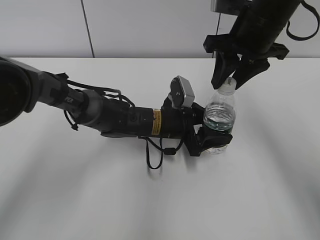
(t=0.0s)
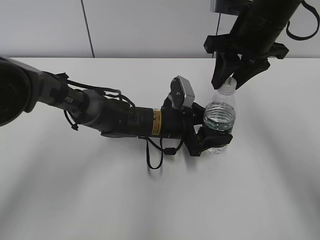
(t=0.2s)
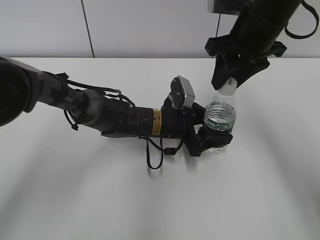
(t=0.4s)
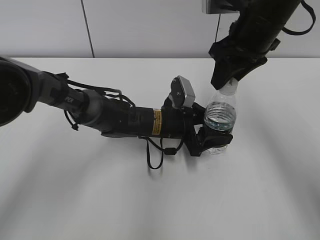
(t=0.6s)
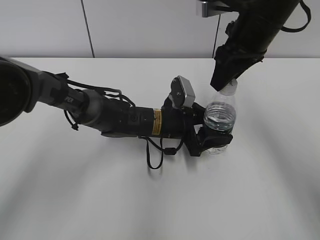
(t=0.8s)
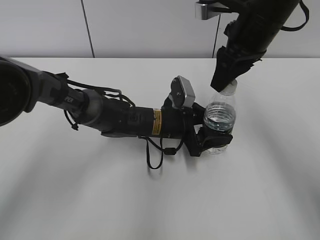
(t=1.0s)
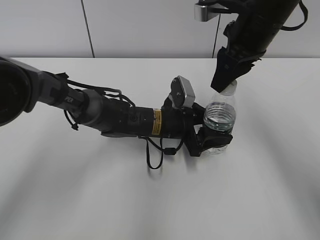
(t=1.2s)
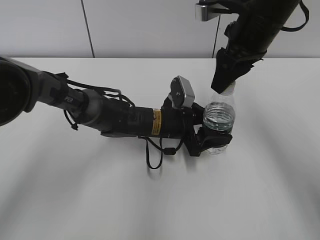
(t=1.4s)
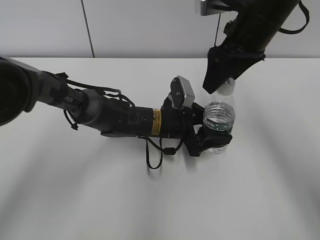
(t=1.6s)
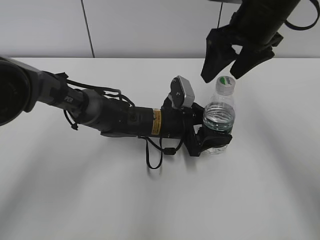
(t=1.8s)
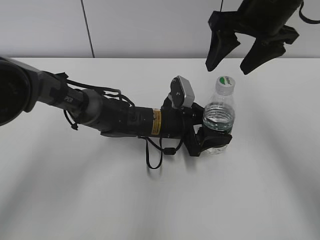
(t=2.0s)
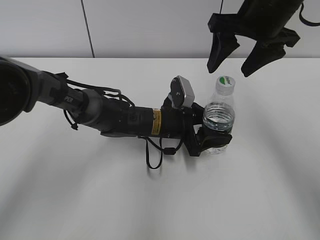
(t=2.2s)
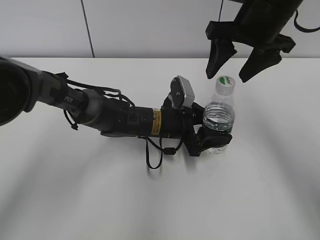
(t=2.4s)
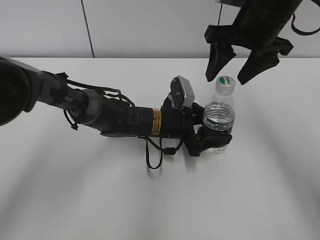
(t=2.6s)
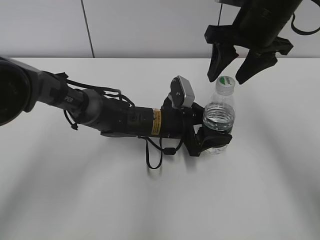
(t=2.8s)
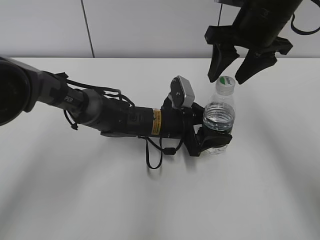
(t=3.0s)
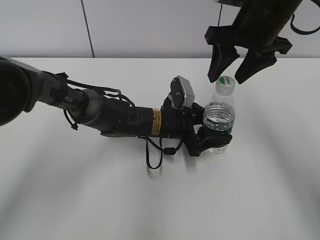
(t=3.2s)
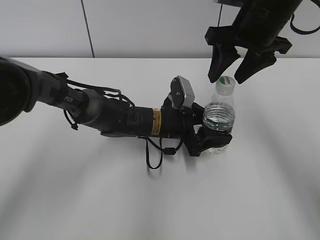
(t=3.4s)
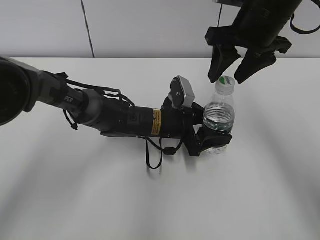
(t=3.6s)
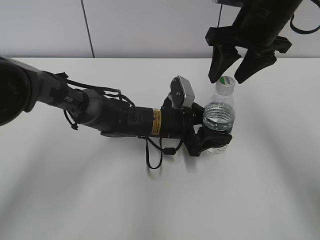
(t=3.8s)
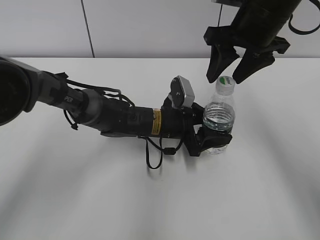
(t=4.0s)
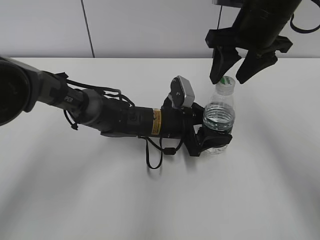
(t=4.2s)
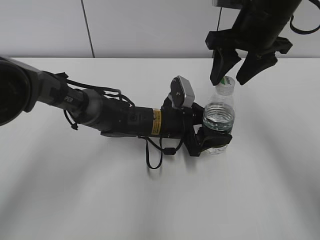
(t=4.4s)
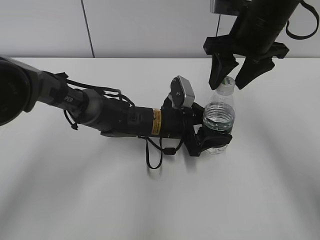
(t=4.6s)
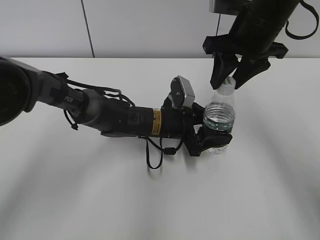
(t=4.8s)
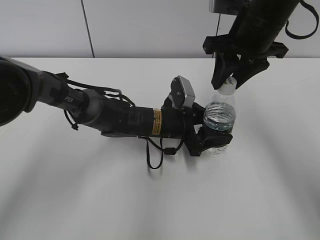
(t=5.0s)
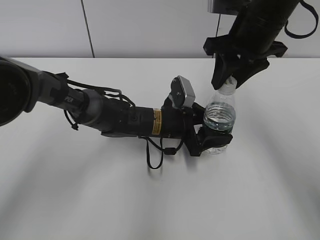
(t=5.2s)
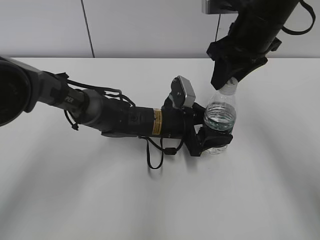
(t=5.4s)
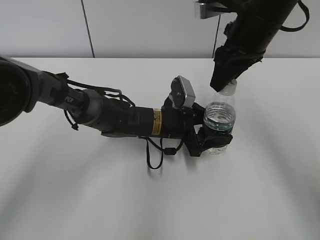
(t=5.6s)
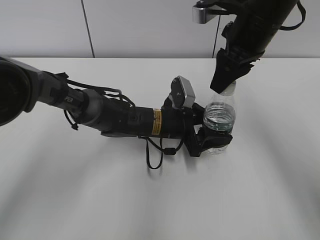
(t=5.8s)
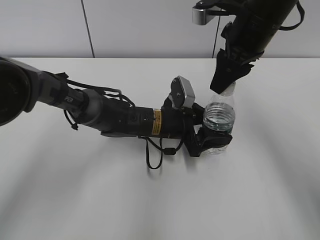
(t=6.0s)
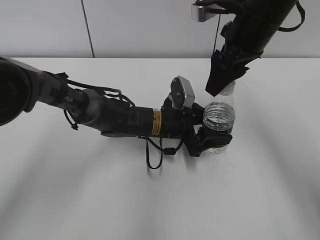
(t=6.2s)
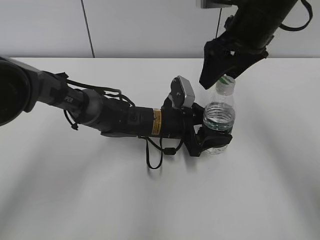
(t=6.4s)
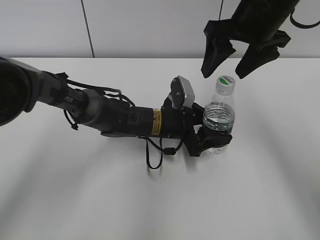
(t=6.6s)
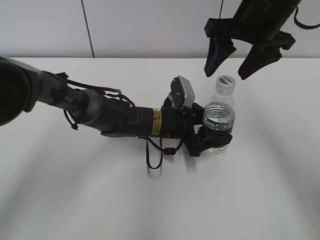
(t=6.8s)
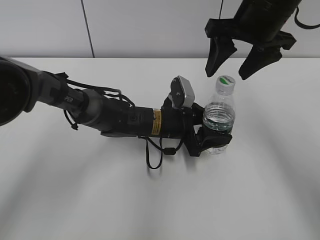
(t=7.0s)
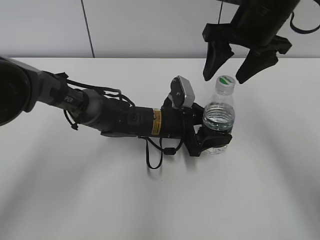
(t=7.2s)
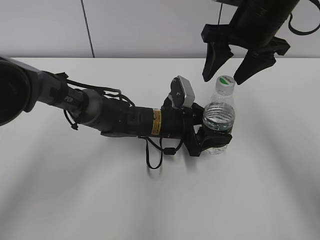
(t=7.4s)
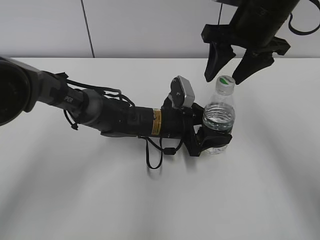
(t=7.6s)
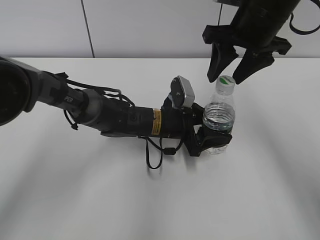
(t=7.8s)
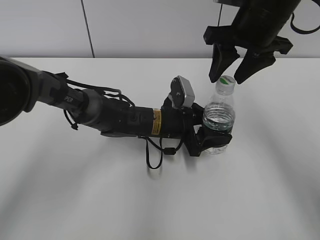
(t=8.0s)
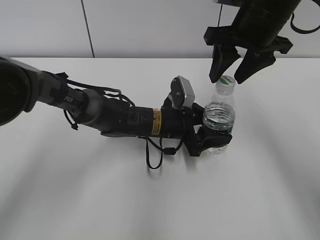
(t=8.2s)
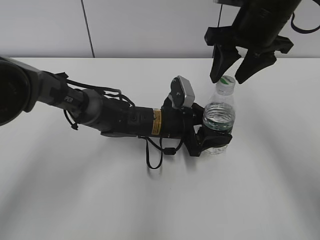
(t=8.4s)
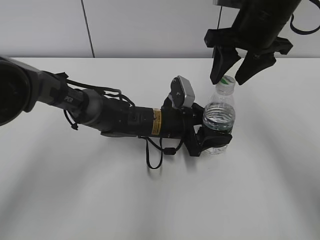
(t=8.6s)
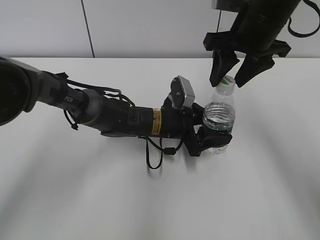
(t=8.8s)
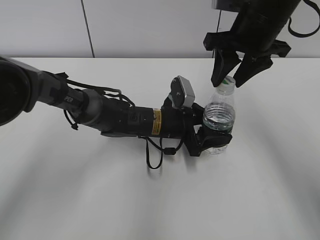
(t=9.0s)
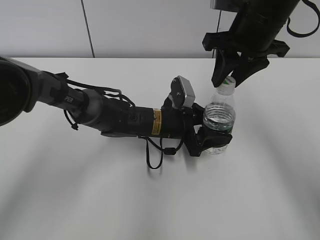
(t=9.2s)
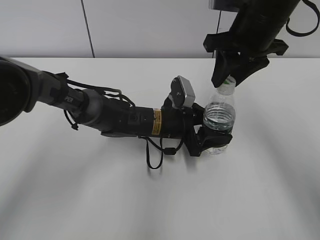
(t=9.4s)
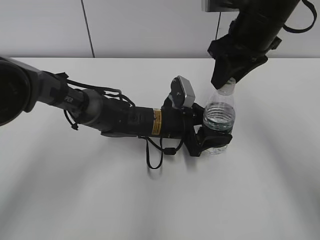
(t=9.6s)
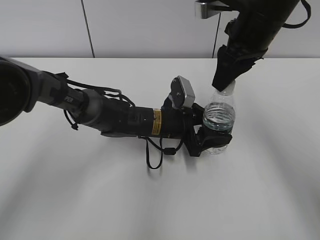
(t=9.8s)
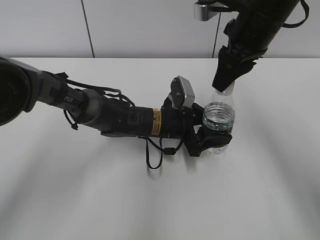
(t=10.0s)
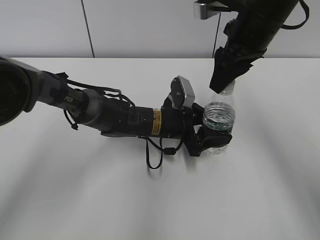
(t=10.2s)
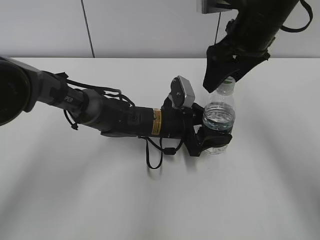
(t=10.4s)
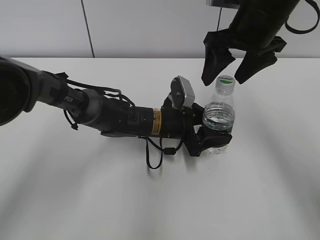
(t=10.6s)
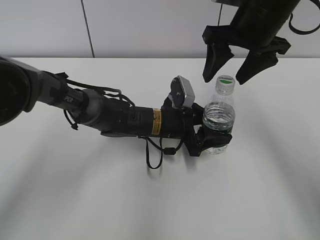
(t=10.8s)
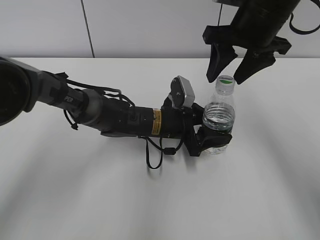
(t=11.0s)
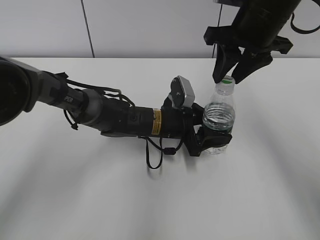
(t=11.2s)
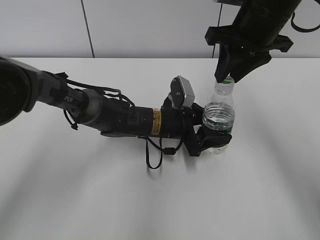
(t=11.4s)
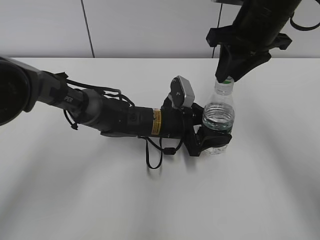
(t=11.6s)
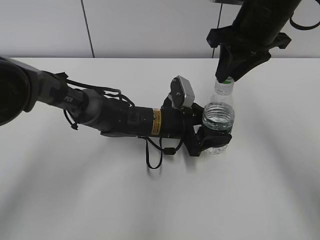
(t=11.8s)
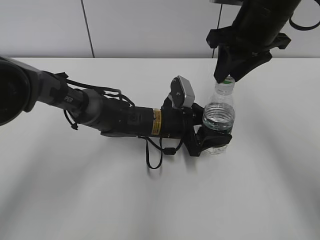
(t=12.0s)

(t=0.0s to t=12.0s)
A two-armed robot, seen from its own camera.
t=0.0s - t=1.6s: The right gripper opens.
t=3.0s - t=4.4s: Both grippers stay about where they are.
t=4.4s - t=6.0s: The right gripper closes its fingers.
t=6.0s - t=7.6s: The right gripper opens.
t=7.6s - t=9.0s: Neither gripper changes place.
t=9.0s - t=10.4s: The right gripper opens up.
t=10.4s - t=12.0s: The right gripper closes its fingers.

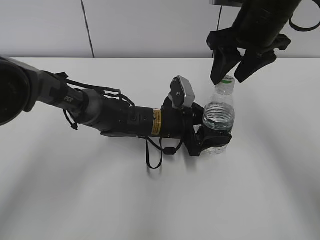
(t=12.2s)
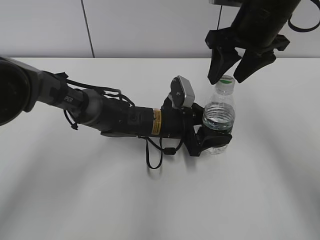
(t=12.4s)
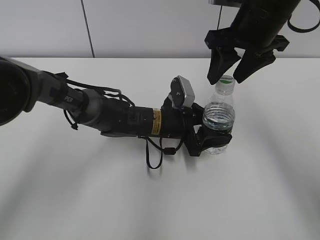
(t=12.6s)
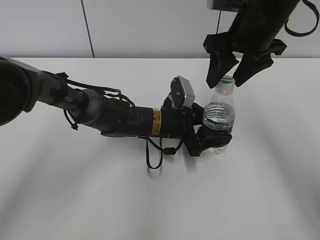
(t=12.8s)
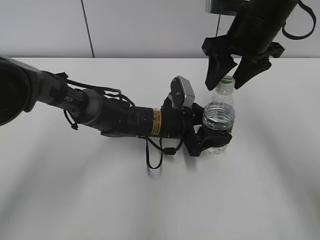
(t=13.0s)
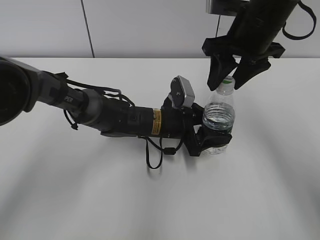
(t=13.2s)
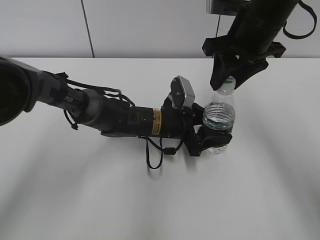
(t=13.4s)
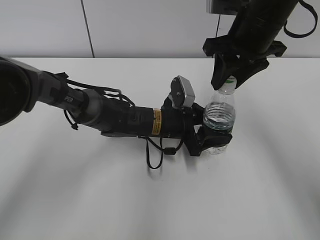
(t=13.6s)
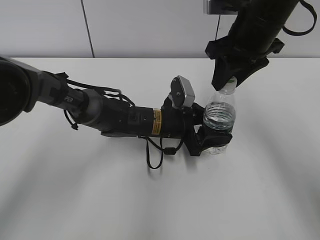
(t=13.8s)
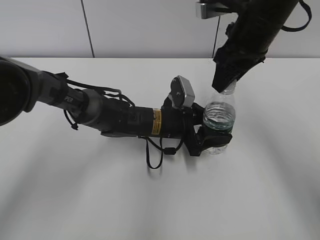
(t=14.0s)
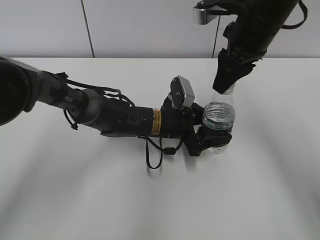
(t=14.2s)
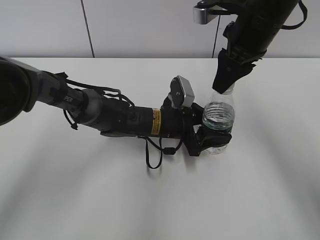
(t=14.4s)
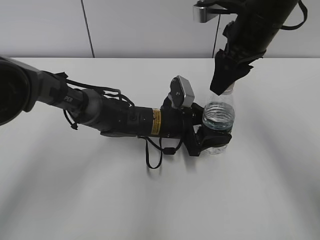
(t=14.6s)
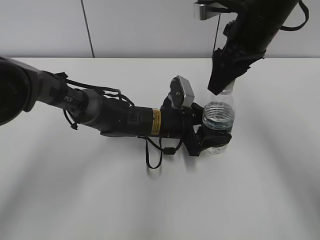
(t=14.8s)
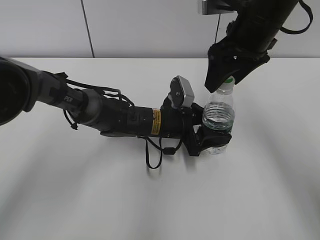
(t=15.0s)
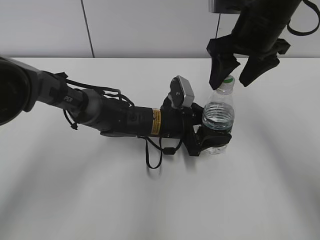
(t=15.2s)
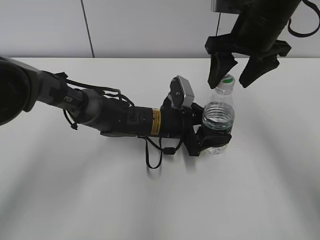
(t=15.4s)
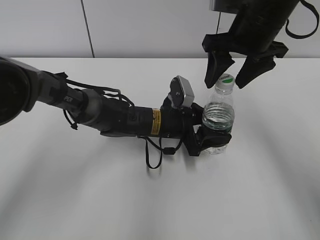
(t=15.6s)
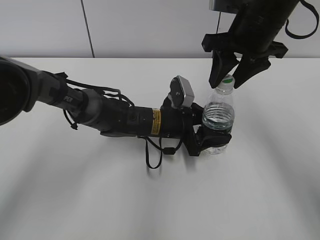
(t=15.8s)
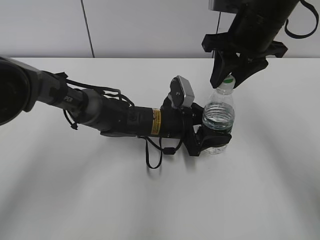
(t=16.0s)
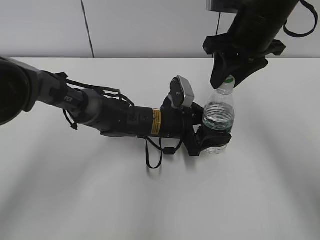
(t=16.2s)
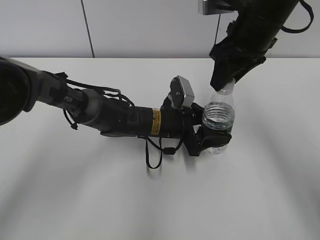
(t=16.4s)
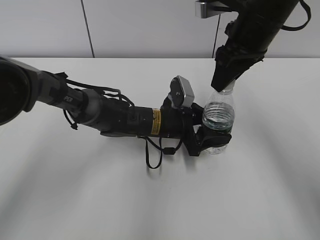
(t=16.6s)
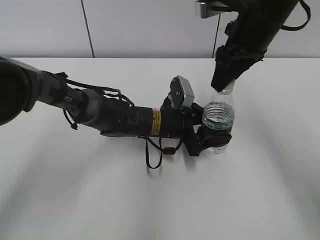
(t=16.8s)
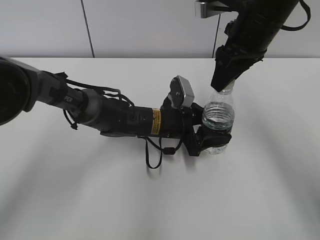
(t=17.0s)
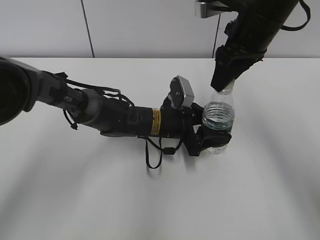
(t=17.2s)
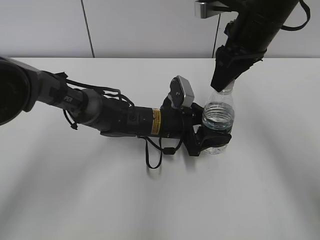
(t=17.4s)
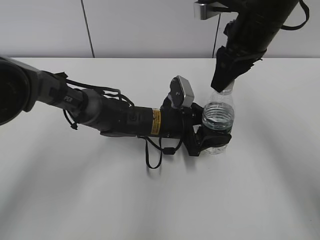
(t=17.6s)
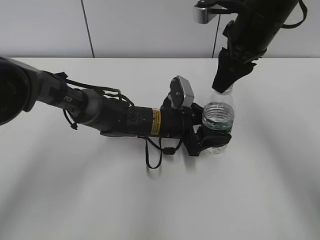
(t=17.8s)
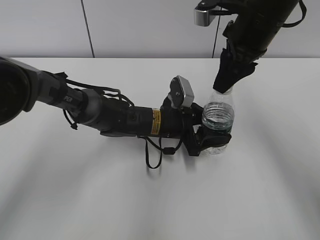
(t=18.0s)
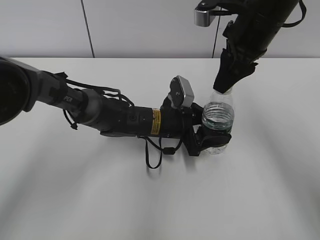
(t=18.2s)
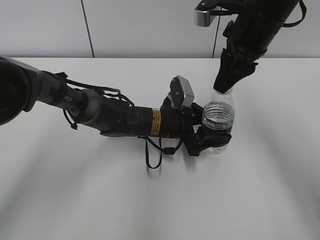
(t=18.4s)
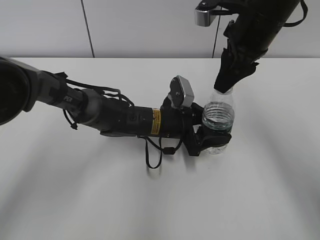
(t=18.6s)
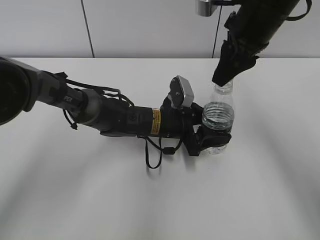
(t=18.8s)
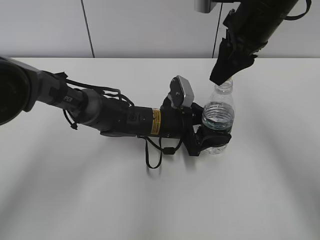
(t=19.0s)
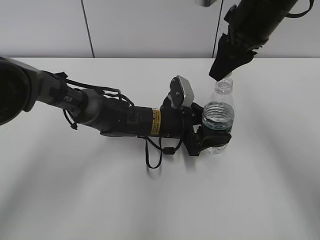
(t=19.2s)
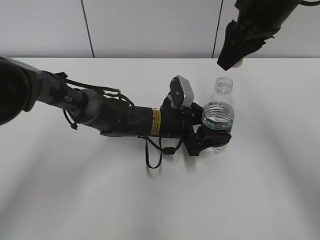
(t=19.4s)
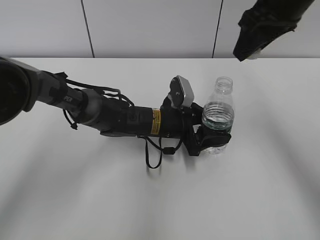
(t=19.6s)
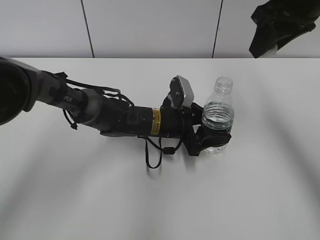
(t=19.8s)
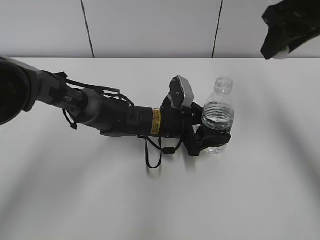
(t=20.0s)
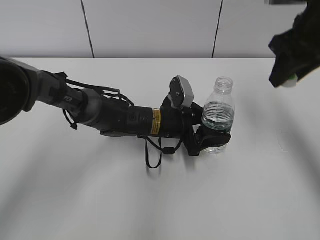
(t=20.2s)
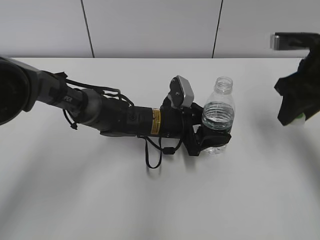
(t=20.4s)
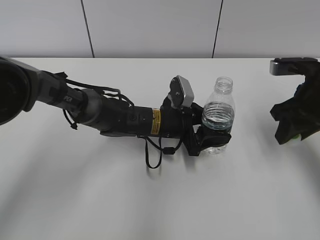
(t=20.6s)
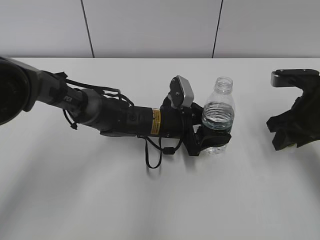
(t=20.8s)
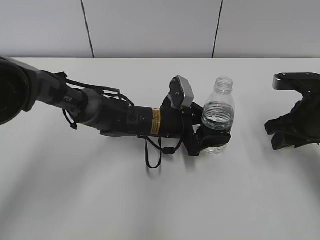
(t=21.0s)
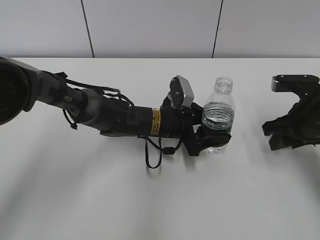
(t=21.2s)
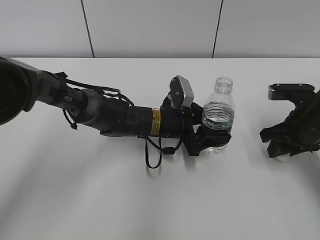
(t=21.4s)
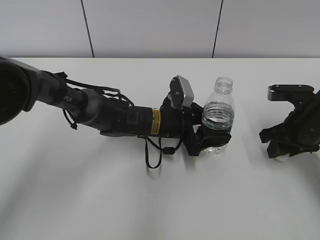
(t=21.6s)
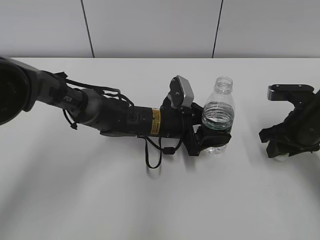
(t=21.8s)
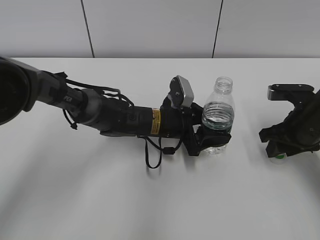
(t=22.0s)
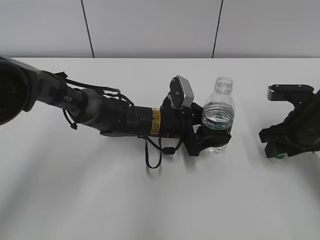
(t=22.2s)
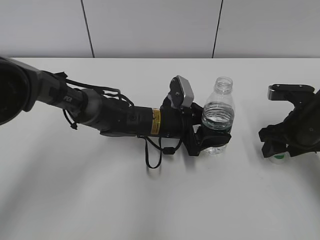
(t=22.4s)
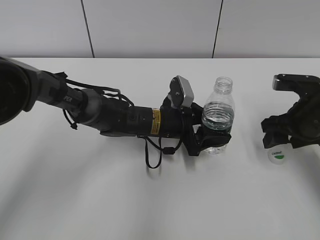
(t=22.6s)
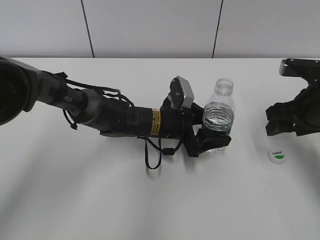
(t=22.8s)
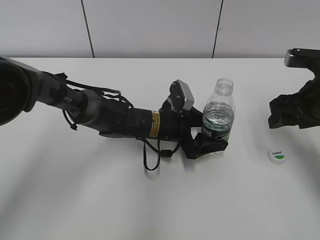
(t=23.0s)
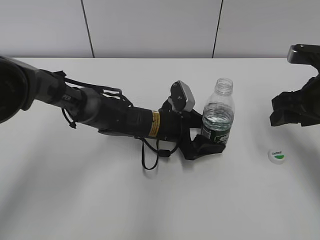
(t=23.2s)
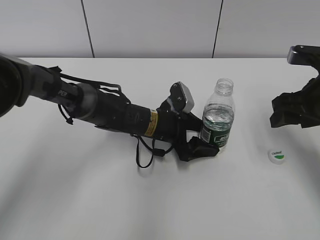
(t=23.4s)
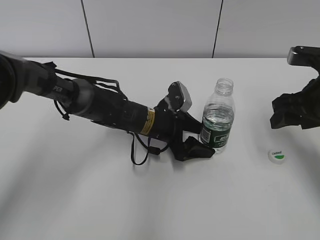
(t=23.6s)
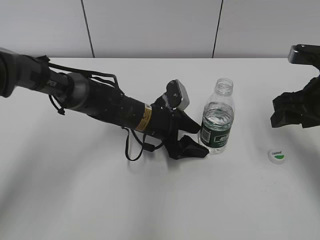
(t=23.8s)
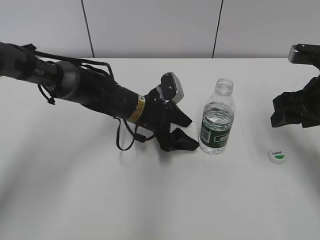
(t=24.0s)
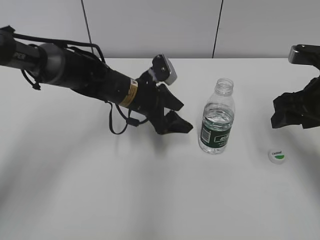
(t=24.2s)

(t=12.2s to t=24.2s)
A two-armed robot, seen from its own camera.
Step, t=12.2s - t=19.2s: Twist the bottle cap with the right hand.
Step, t=19.4s - t=22.4s: Place the bottle cap on the table with the right hand.
Step, t=22.8s - t=23.6s: Place the C'estbon with the left hand.
t=12.2s - t=13.8s: The right gripper closes up.
t=13.8s - t=15.2s: The right gripper opens.
t=15.2s - t=16.6s: The right gripper closes.
t=18.2s - t=19.8s: The right gripper heads upward and to the right, covering approximately 10 cm.
t=19.8s - t=21.2s: The right gripper is displaced downward by about 20 cm.
t=21.2s - t=22.6s: The right gripper opens its fingers.
t=22.6s - t=24.2s: The right gripper is displaced upward by roughly 5 cm. The left gripper changes place by some 5 cm, and opens its fingers.
